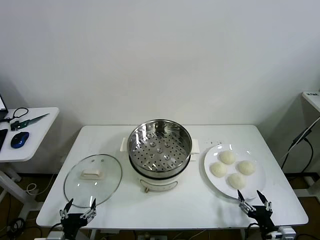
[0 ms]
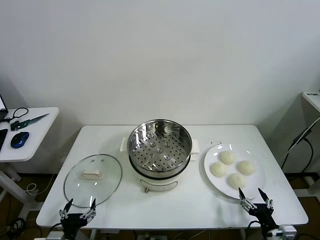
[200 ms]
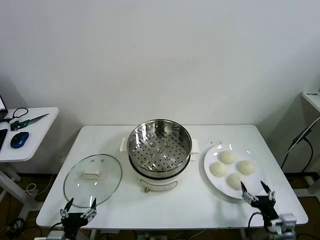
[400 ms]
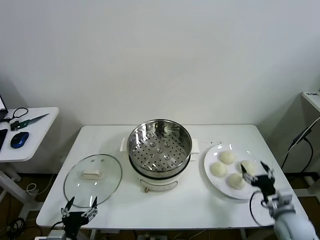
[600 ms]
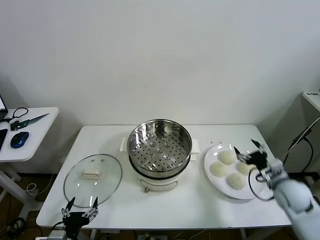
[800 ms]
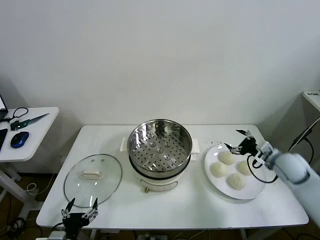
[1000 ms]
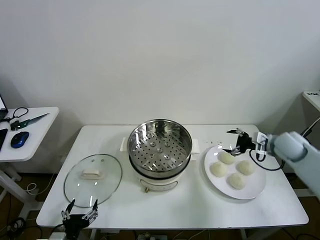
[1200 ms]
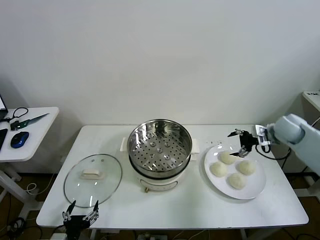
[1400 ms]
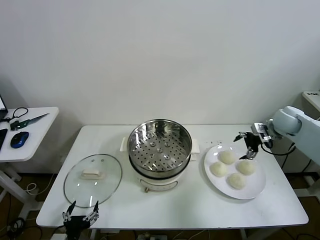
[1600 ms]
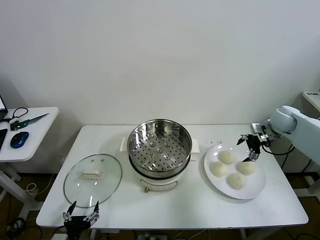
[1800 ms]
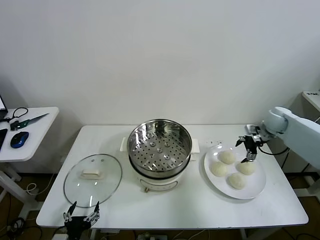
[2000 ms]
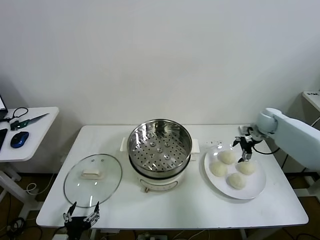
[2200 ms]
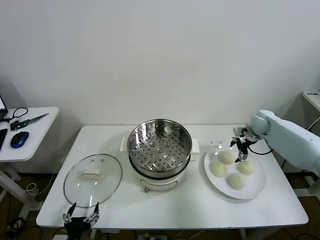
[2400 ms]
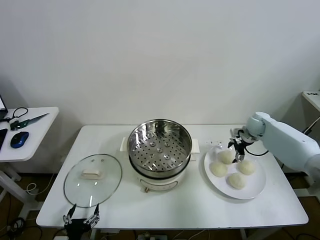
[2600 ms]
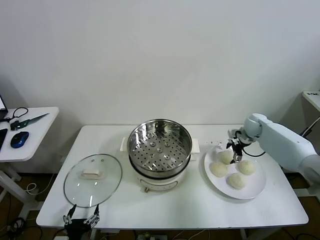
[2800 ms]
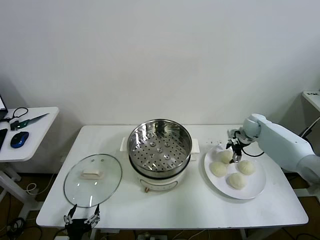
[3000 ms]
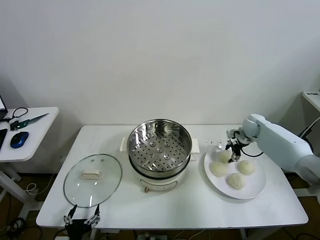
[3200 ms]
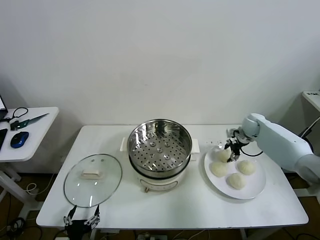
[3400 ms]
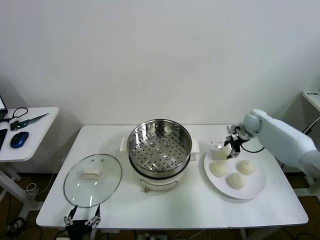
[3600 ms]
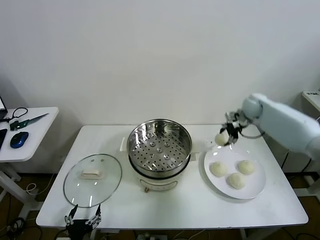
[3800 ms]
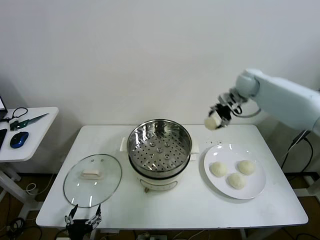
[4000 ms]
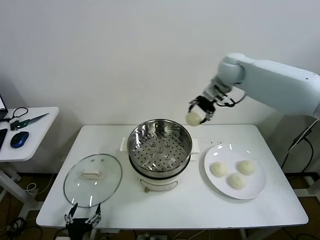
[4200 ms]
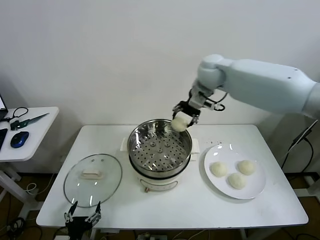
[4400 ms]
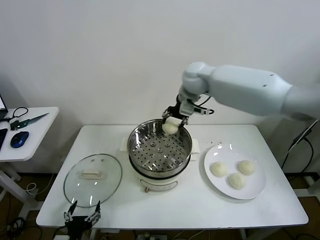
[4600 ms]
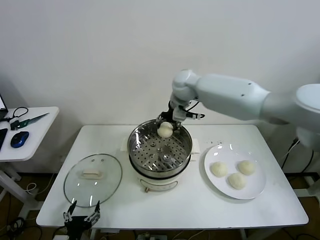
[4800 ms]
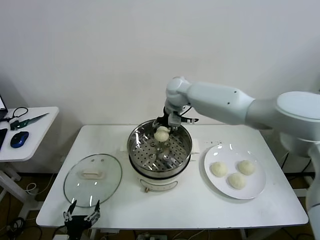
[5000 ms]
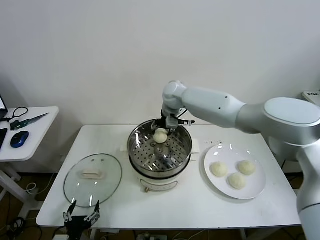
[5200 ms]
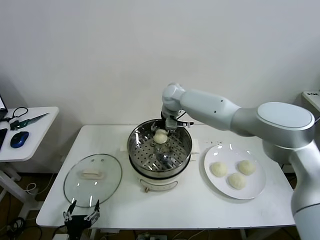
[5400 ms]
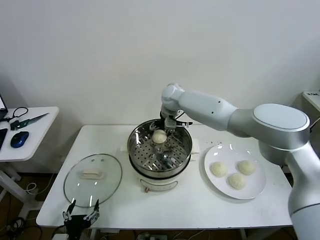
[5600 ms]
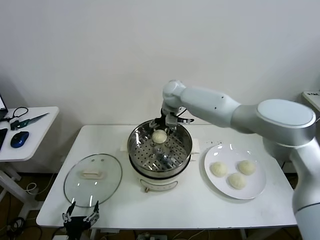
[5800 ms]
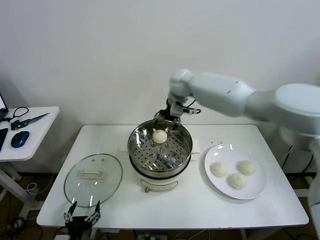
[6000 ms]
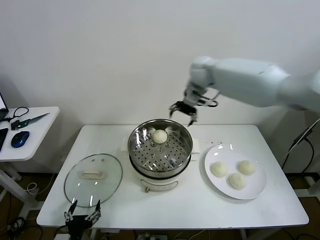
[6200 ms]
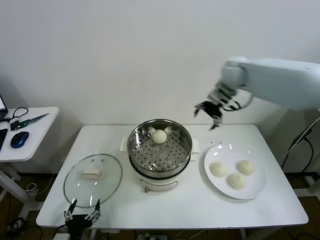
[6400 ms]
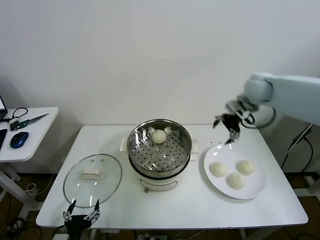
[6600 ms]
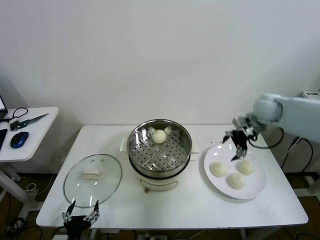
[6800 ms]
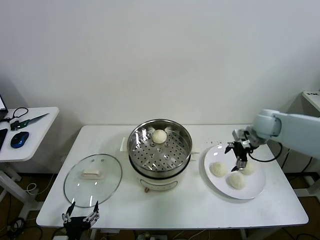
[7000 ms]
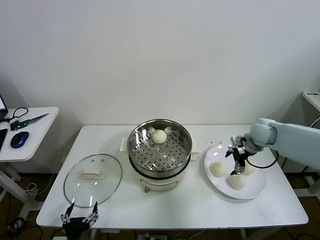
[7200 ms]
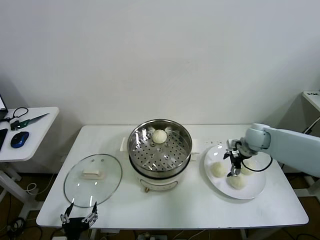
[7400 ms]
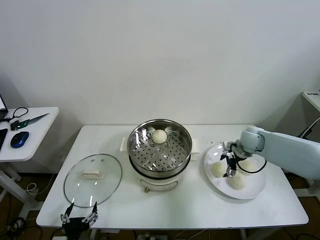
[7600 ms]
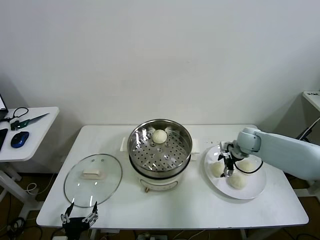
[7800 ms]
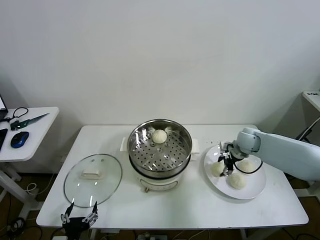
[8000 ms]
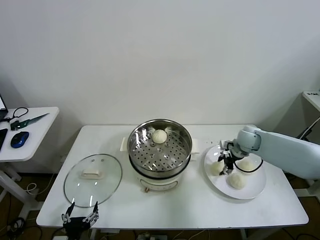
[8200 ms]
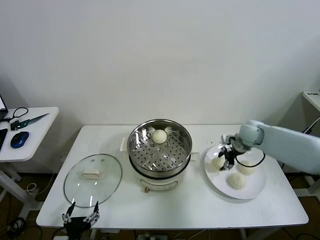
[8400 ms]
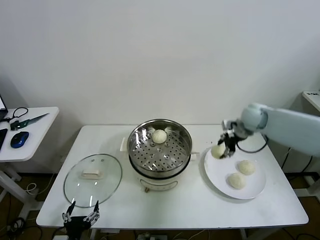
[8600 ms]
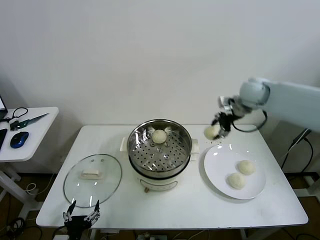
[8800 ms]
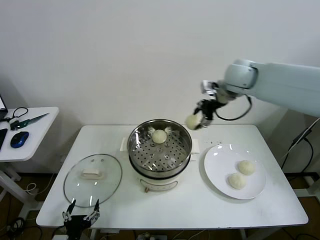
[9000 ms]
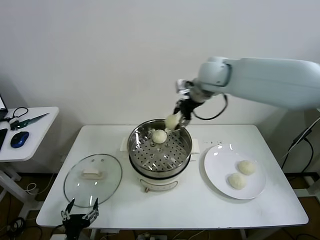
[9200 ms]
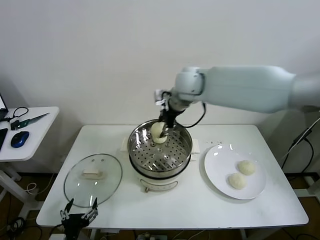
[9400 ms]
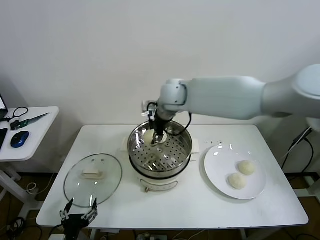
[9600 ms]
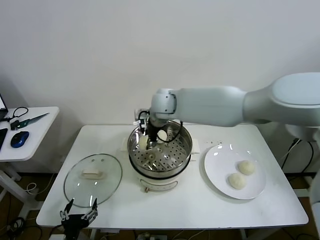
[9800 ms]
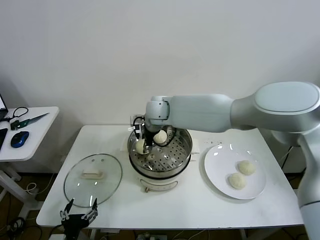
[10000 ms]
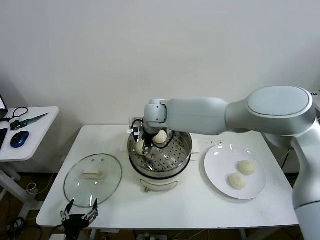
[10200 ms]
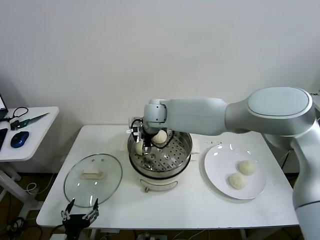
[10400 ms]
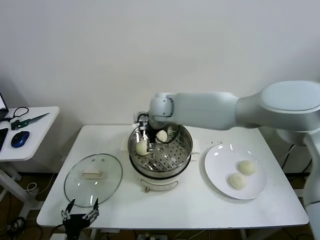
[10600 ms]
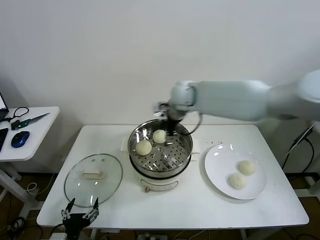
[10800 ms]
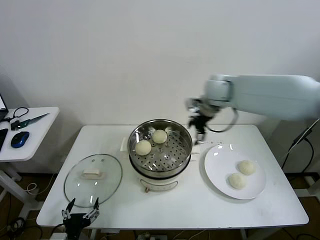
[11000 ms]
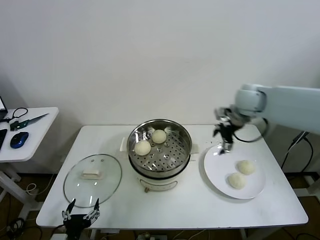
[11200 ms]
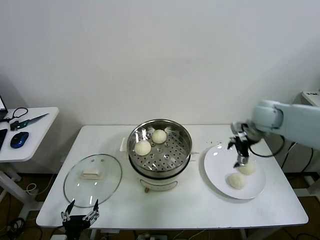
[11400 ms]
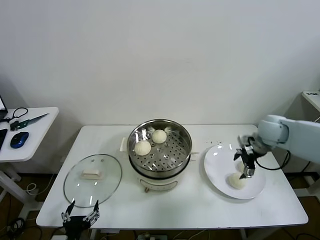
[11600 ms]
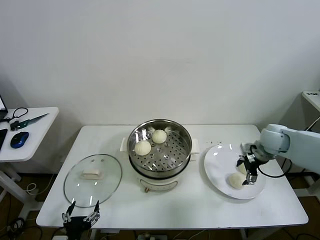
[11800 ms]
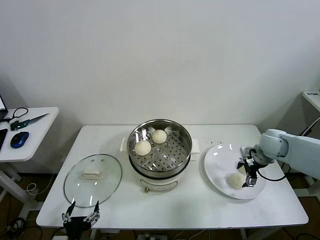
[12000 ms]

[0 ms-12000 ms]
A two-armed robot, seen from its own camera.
Task of the whole recording: take steamed baozi put them in steamer then cover it.
Step, 0 ms to 3000 ms: Grasp the baozi in the plate with right gripper.
Step, 3200 ms to 5800 ms: Place the baozi on the steamer with right gripper.
Step, 6200 ms to 8000 ms: Grasp the baozi in the plate with right gripper.
Step, 8200 ms to 10400 ms: Place the baozi on the steamer with right gripper.
1600 ms to 3000 ms: The right gripper is displaced downward, forward and to the left by about 15 cm, and closes.
3000 ms to 4400 ms: The right gripper travels to the left and upward by roughly 35 cm.
4400 ms to 6000 ms: The right gripper moves approximately 10 cm downward and comes back, and opens.
6000 ms to 7600 ms: The right gripper travels to the right, downward and backward by roughly 35 cm.
7600 ms to 9000 ms: The right gripper goes some 30 cm upward and to the left, and closes.
9000 ms to 10400 ms: The right gripper shifts some 25 cm to the left and downward, and opens its fingers.
10400 ms to 12000 ms: The right gripper goes some 40 cm to the right.

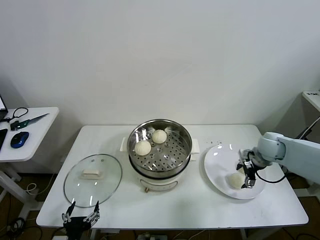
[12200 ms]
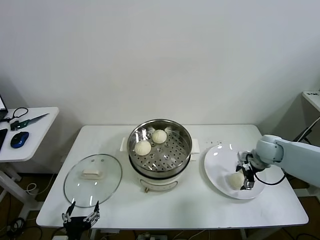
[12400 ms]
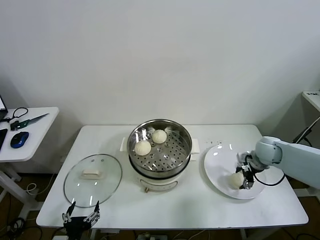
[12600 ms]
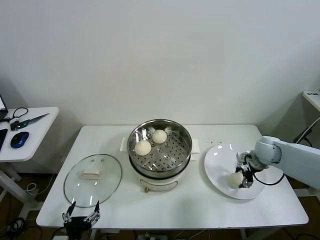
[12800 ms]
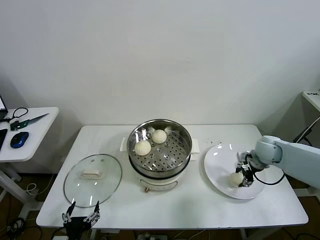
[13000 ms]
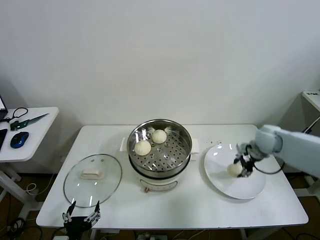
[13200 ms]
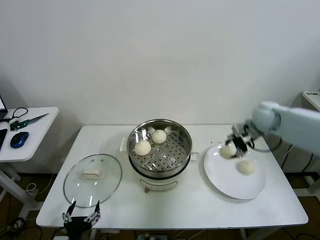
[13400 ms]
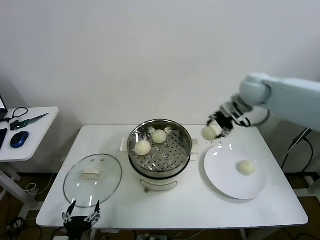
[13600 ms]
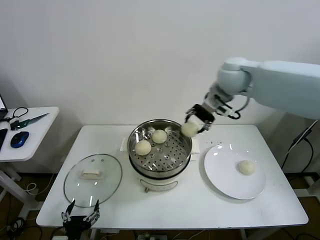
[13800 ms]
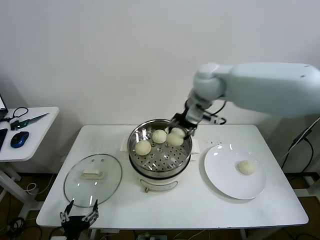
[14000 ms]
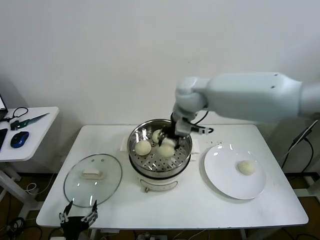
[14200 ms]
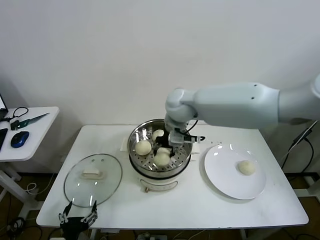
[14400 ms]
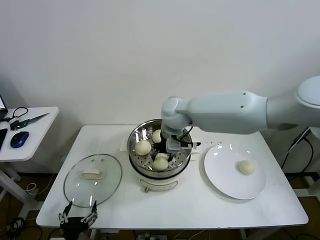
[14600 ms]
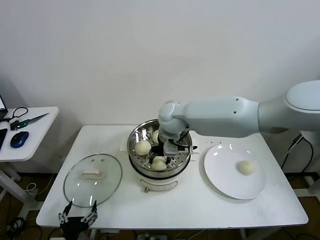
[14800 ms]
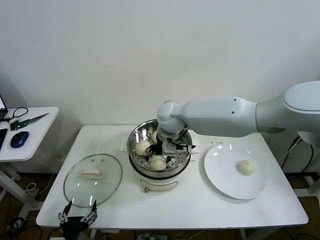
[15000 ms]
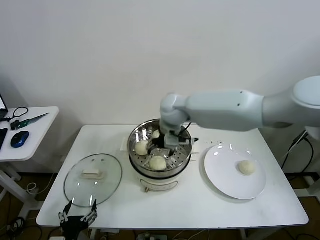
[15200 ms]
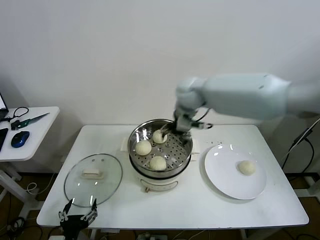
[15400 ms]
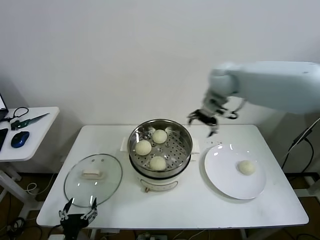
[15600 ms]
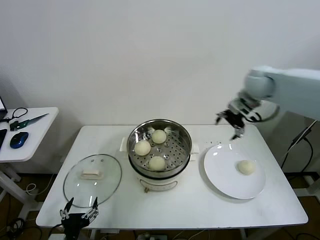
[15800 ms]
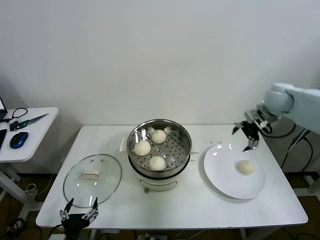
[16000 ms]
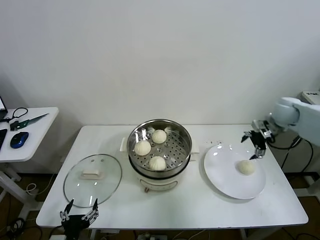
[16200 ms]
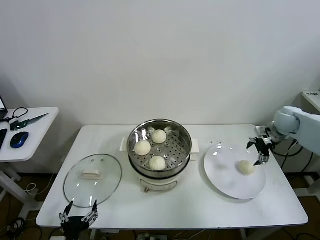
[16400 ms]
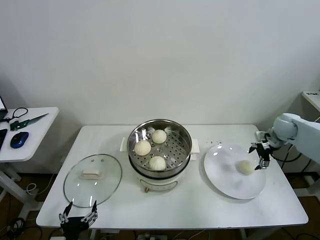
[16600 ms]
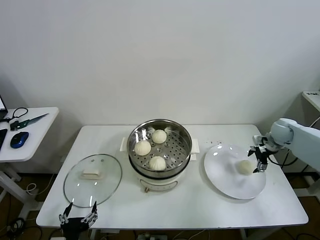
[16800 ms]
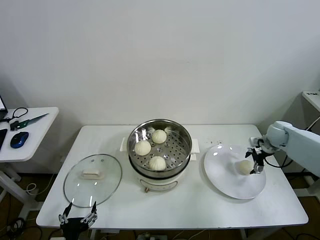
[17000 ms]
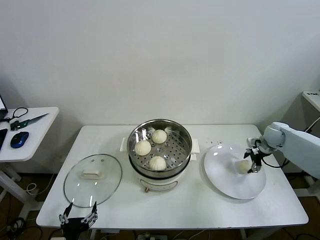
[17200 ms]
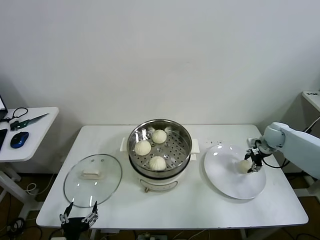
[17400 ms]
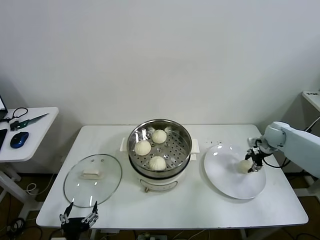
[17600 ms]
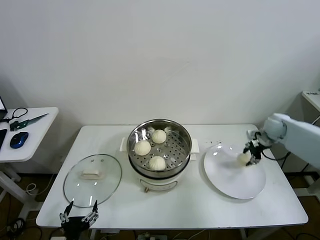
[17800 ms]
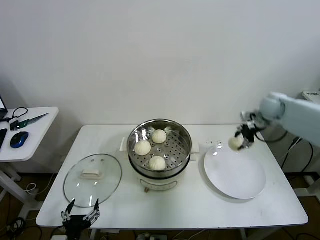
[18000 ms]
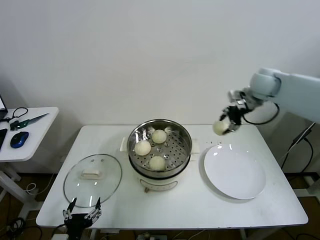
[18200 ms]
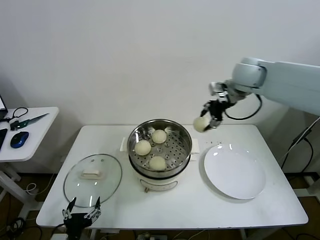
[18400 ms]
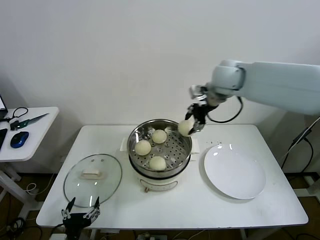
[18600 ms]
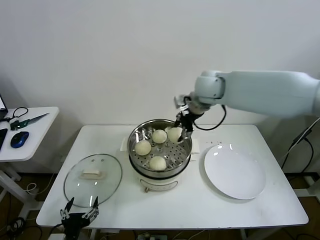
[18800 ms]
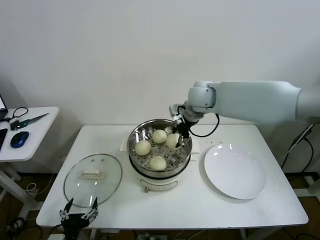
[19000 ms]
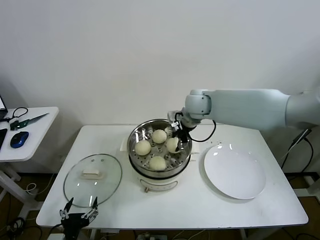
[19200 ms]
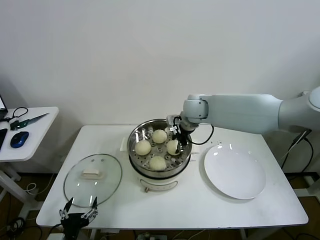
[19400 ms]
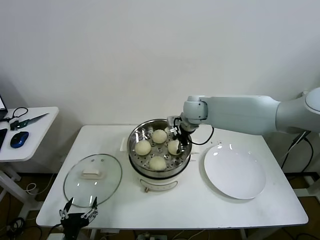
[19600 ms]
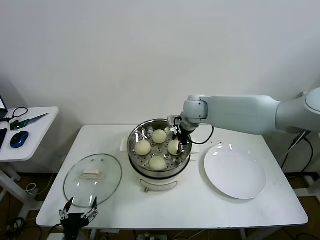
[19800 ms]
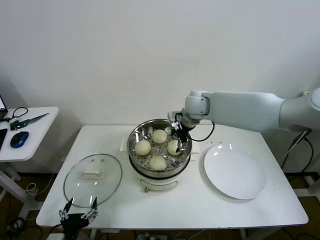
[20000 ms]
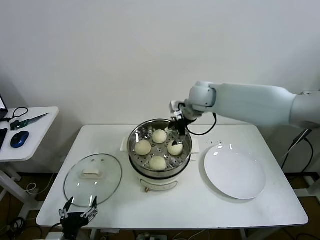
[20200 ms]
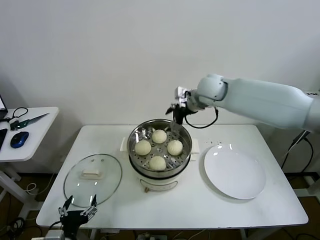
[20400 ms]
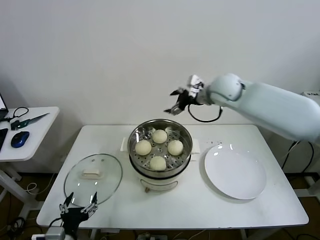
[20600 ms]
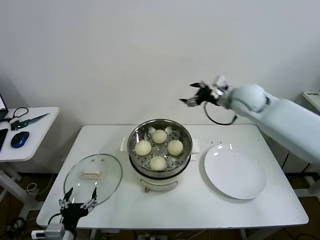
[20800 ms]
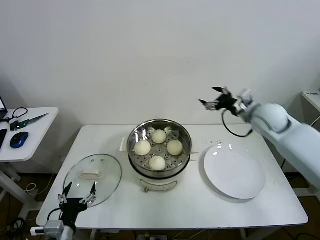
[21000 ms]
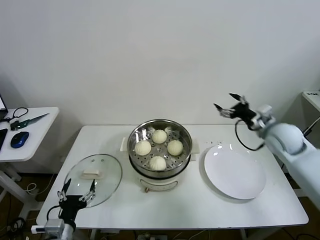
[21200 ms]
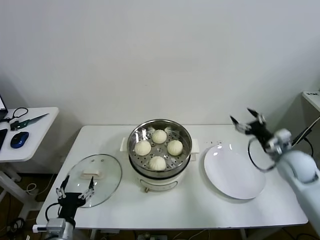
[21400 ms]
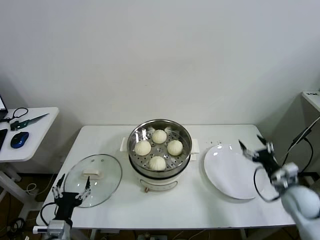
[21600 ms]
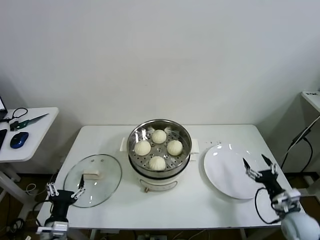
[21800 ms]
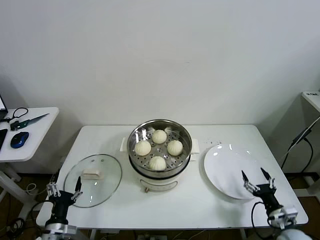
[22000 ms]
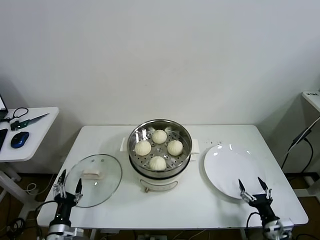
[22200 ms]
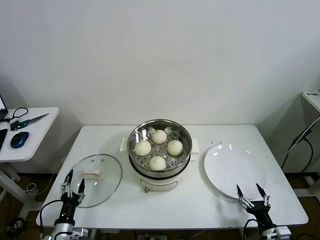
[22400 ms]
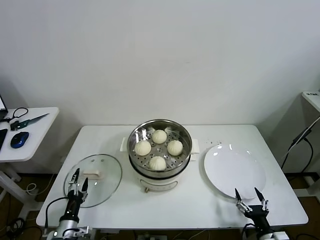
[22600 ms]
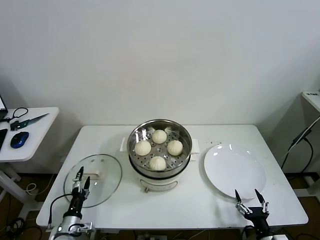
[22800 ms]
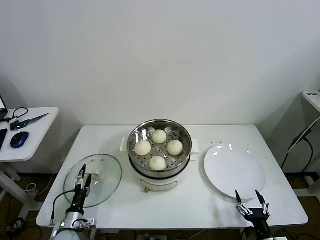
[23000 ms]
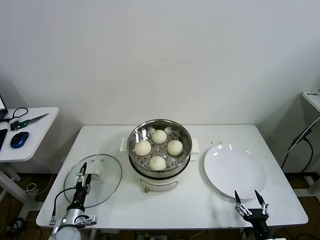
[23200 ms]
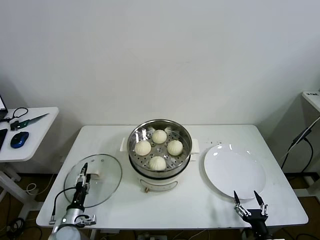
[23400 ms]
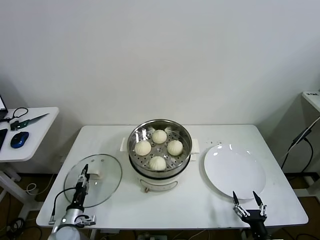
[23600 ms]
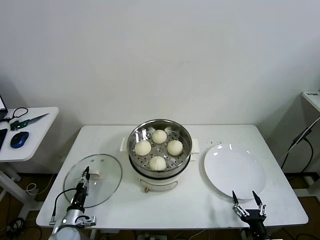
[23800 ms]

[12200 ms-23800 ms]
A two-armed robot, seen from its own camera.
Task of the whole recording: take steamed baozi put them in steamer then cover it.
Step, 12800 ms to 15000 ms: Place the baozi on the steamer with right gripper.
Step, 15200 ms to 17400 ms: Grasp the baozi in the plate with right gripper.
Step, 17600 ms to 20000 ms: Place the baozi on the steamer with right gripper.
12200 ms to 13600 ms: The right gripper moves upward and to the left, approximately 25 cm, and closes up.
13600 ms to 15000 ms: The right gripper travels to the left by roughly 25 cm, and opens its fingers.
15000 ms to 16600 ms: The right gripper shifts some 40 cm to the right.
16600 ms to 18000 ms: The right gripper is displaced upward and to the left by about 10 cm, and closes.
18000 ms to 19400 ms: The right gripper is displaced to the left by some 30 cm.
19400 ms to 21000 ms: The right gripper is displaced to the right by approximately 20 cm, and opens its fingers.
21000 ms to 22400 ms: The left gripper is displaced downward and to the left by roughly 10 cm. Meanwhile the right gripper goes about 50 cm backward and downward.
22400 ms to 23800 ms: The left gripper is displaced forward and downward by about 10 cm, and closes its fingers. The right gripper changes place by about 5 cm.
